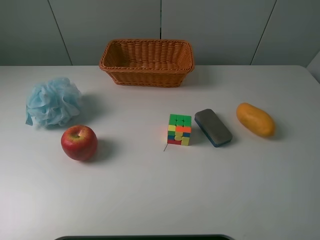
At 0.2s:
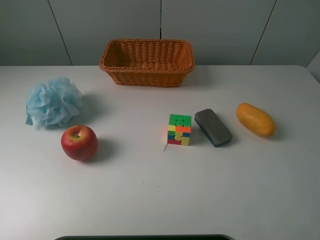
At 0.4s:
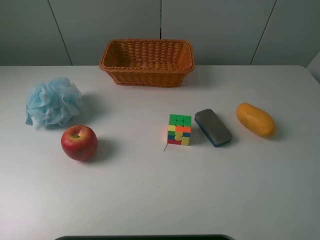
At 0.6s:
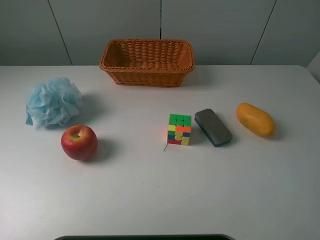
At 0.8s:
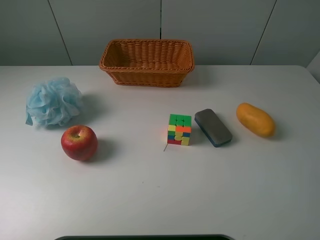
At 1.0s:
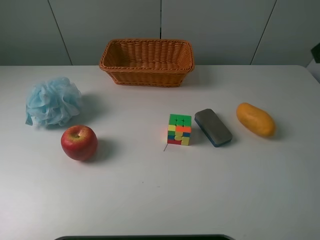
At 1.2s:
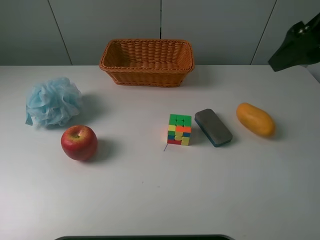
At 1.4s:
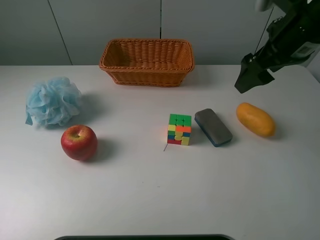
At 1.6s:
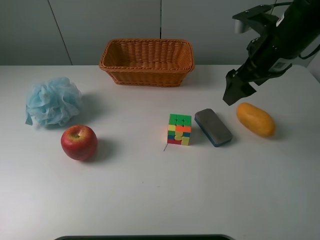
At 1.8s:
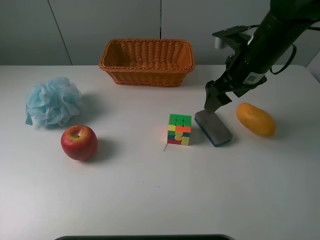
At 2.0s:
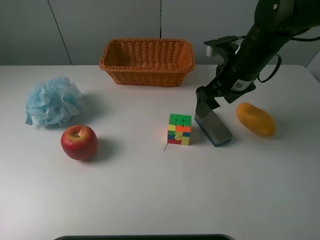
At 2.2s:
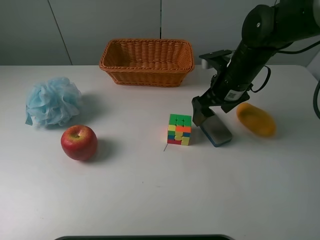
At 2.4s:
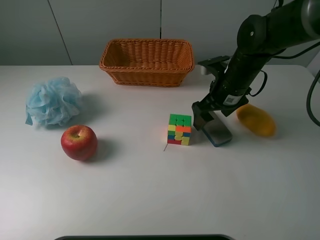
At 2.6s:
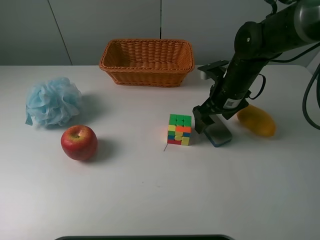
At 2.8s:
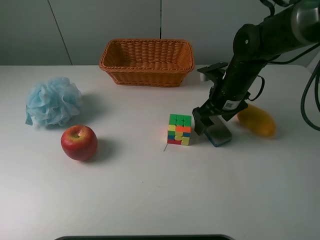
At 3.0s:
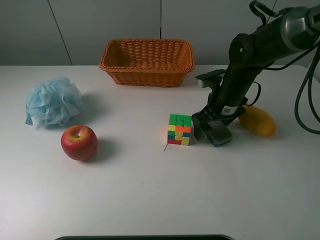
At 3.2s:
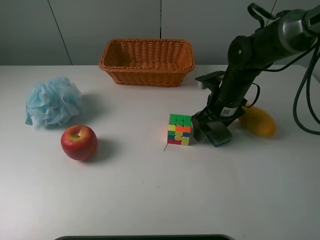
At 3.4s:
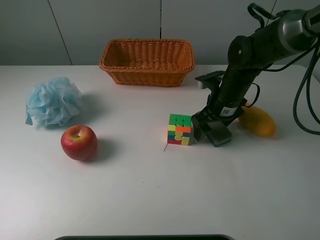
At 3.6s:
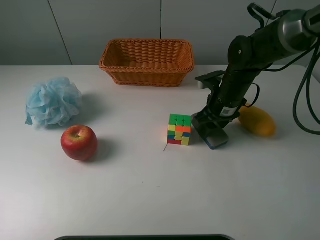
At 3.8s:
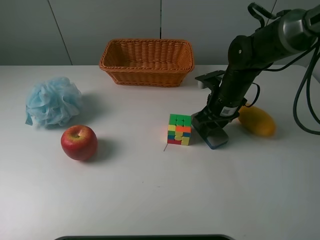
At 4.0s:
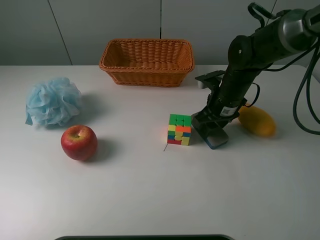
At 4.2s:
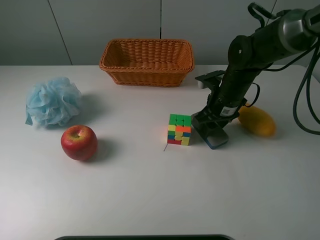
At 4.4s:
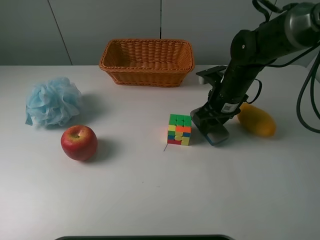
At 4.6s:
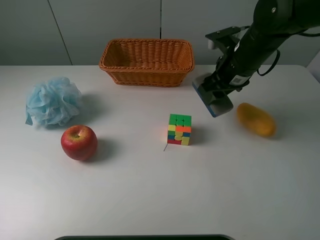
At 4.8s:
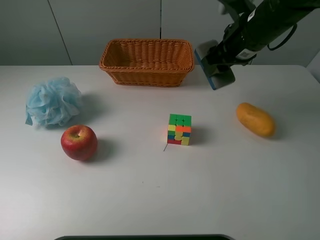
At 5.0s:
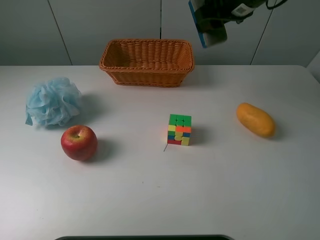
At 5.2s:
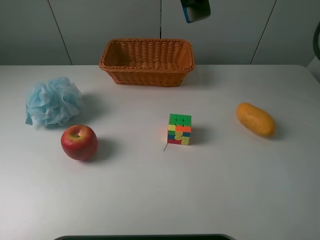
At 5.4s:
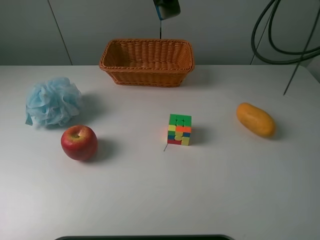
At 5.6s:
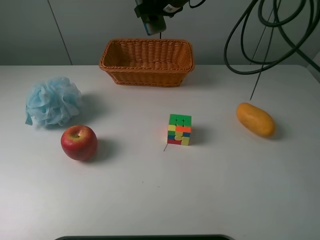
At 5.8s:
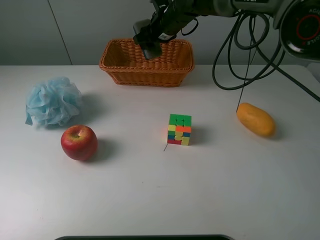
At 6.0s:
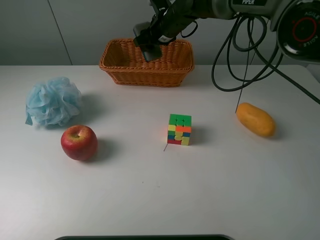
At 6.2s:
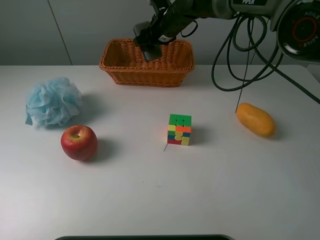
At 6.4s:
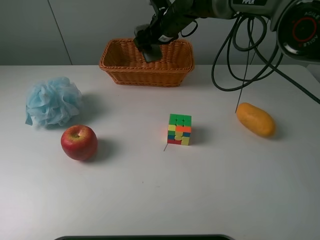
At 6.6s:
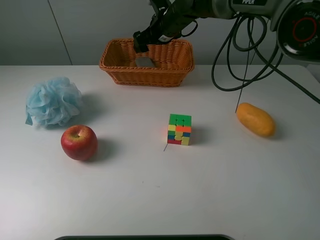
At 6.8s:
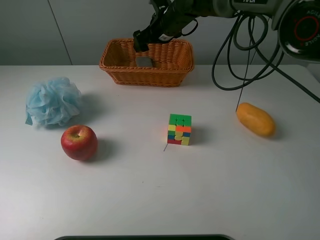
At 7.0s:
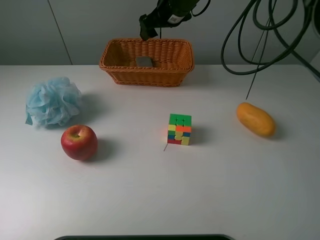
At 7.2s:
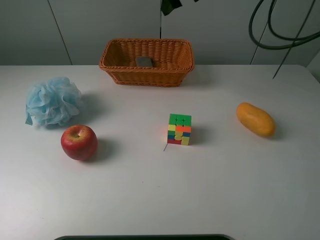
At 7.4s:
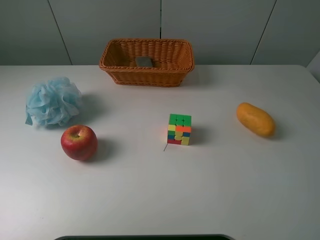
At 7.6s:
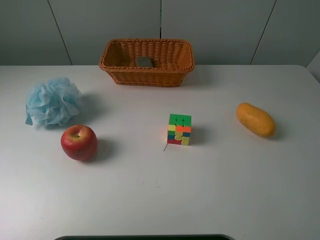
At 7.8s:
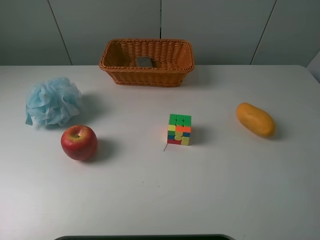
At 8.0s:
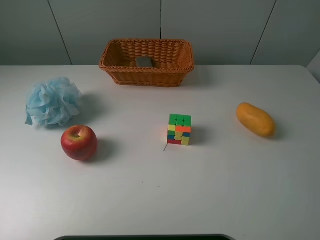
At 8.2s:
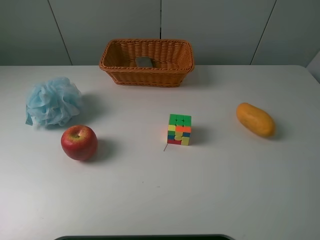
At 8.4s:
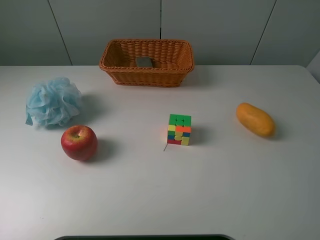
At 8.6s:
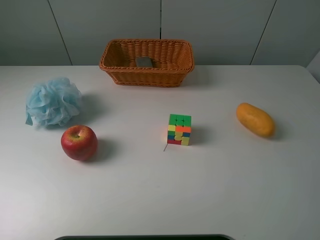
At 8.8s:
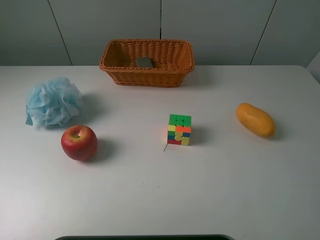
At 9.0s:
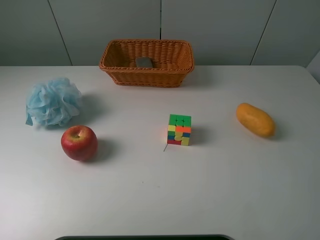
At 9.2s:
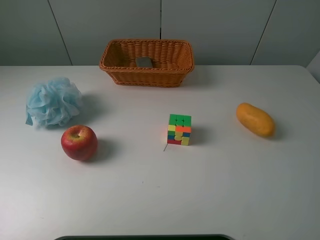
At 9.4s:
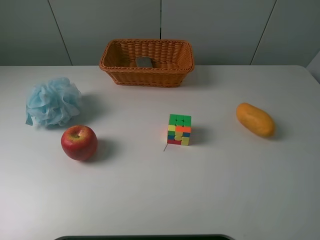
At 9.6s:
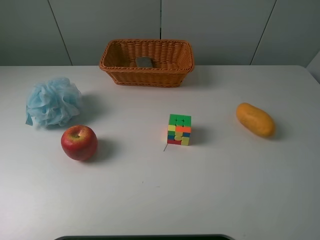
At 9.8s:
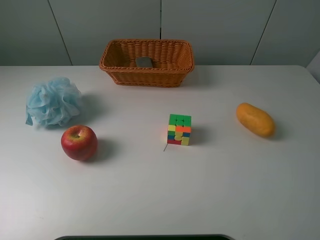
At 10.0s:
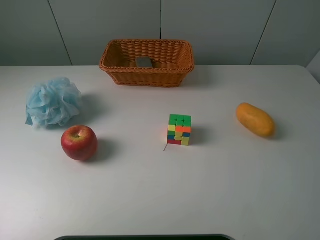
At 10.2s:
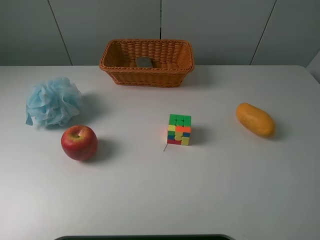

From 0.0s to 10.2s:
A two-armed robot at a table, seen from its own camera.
Task of the whole recording: use a picker to grab the item closest to the cube and place it in the basket.
Step, from 0.0s to 3.6s: Grasp the blackboard erasure with the right gripper.
Step, from 3.8s to 6.6s: Place the blackboard erasure into the basket with the right gripper.
From 0.0s to 1.4s: The right gripper moves forward, some 30 cm.
From 1.4s to 3.0s: The right gripper shifts some 15 cm downward.
From 3.0s to 4.4s: The right gripper closes up.
From 4.4s to 5.8s: The right gripper heads forward and to the left, covering roughly 20 cm, and travels upward and back again, roughly 20 cm each way.
From 5.8s to 7.2s: The right gripper goes roughly 15 cm upward and to the right, and opens up.
From 7.2s to 8.8s: The right gripper goes approximately 50 cm backward and to the right.
